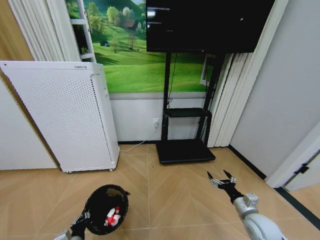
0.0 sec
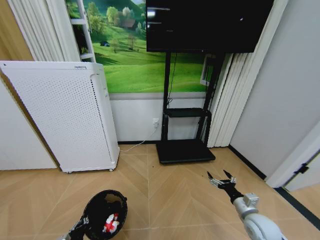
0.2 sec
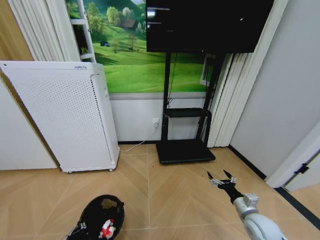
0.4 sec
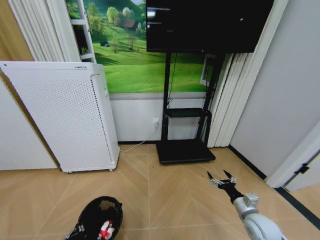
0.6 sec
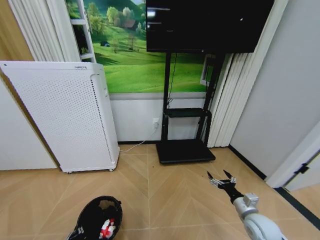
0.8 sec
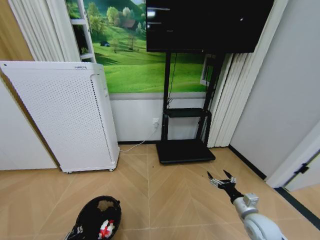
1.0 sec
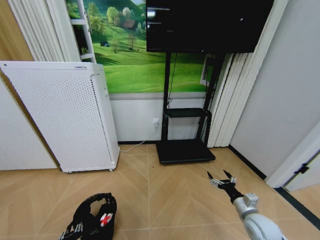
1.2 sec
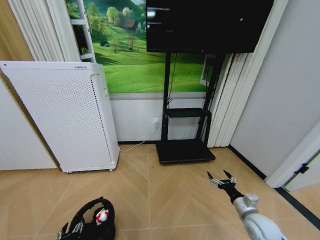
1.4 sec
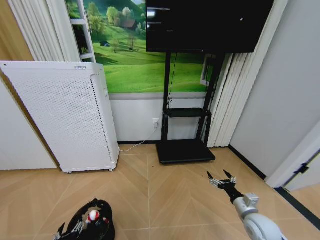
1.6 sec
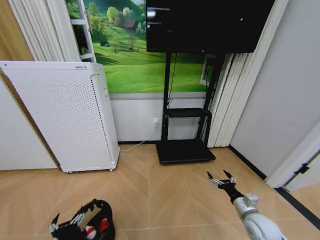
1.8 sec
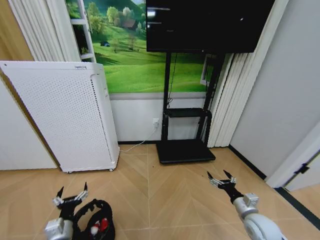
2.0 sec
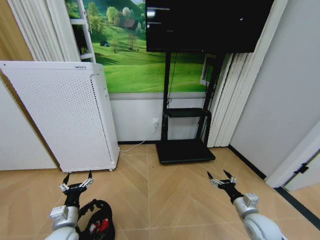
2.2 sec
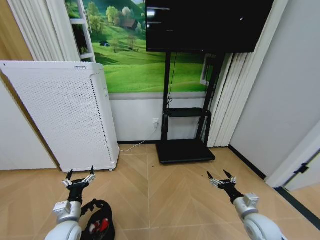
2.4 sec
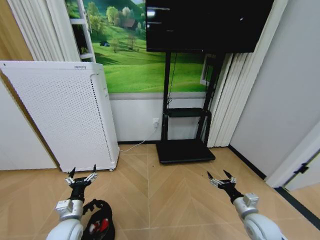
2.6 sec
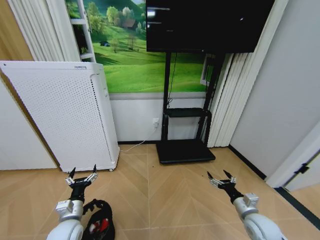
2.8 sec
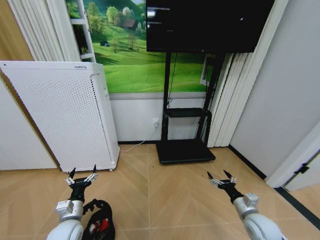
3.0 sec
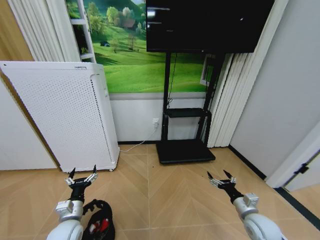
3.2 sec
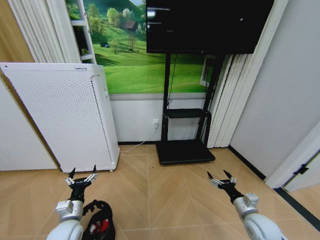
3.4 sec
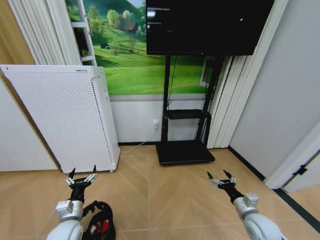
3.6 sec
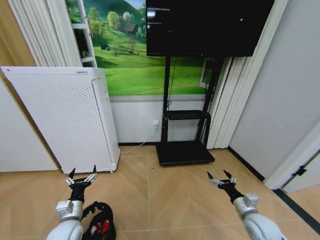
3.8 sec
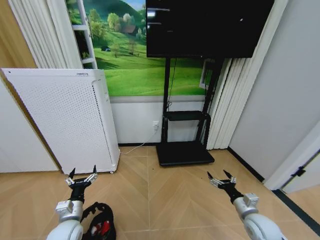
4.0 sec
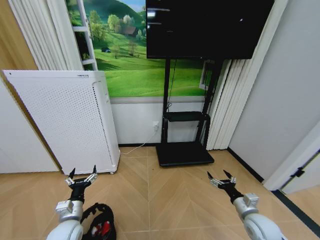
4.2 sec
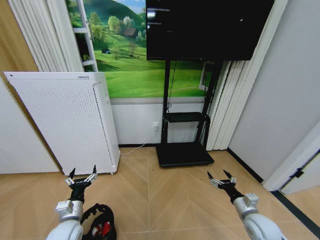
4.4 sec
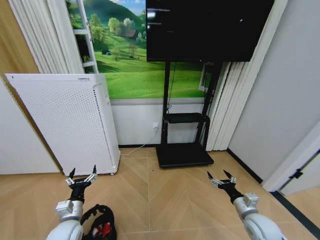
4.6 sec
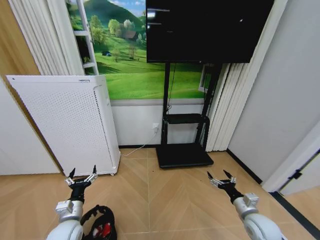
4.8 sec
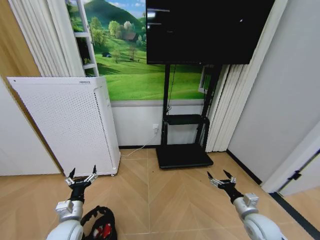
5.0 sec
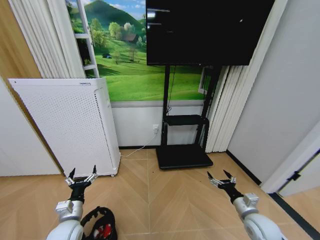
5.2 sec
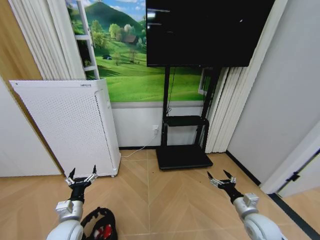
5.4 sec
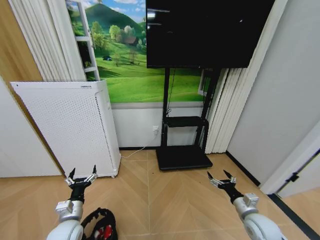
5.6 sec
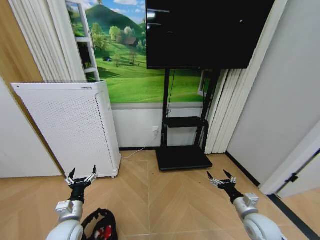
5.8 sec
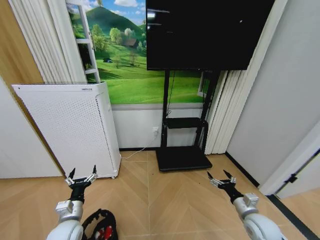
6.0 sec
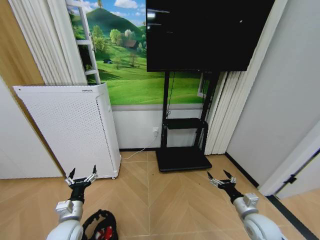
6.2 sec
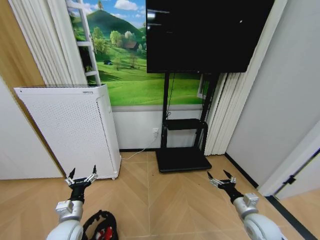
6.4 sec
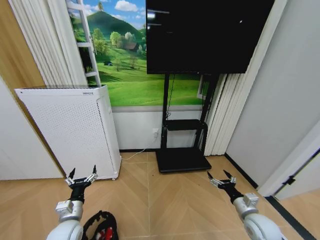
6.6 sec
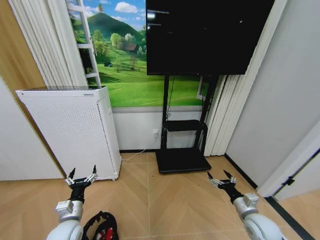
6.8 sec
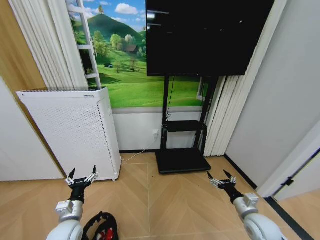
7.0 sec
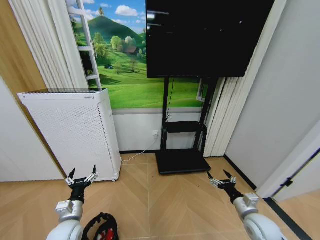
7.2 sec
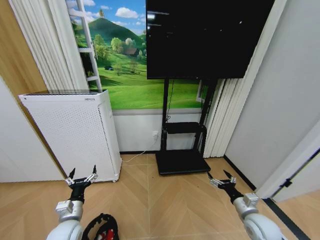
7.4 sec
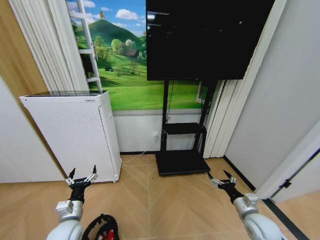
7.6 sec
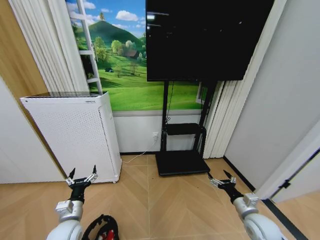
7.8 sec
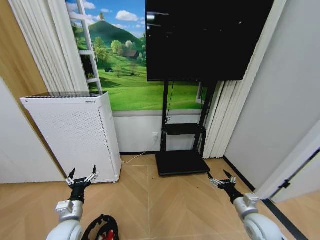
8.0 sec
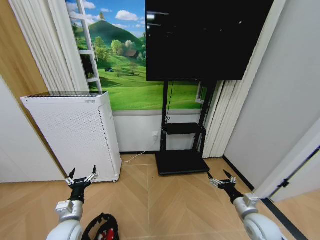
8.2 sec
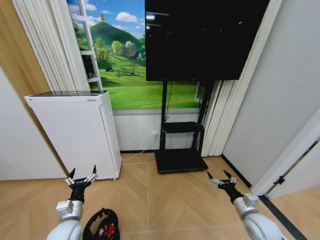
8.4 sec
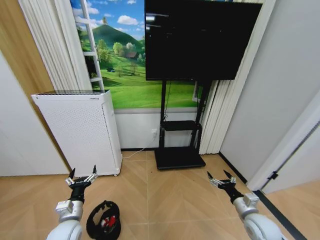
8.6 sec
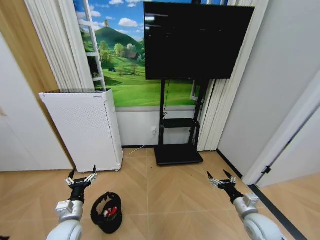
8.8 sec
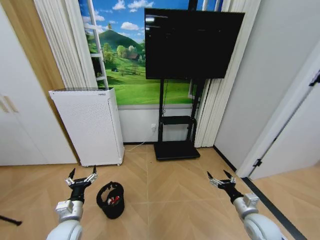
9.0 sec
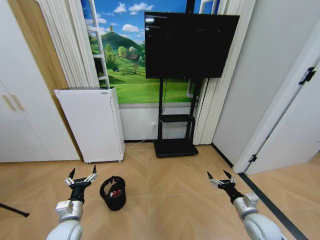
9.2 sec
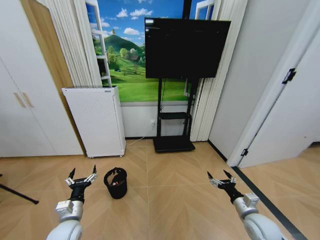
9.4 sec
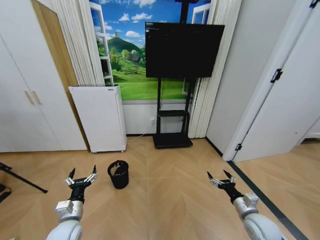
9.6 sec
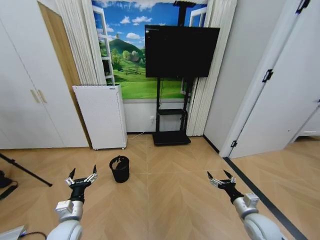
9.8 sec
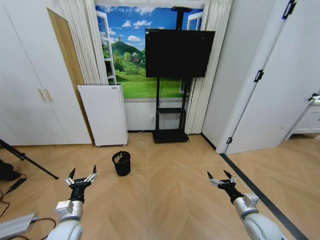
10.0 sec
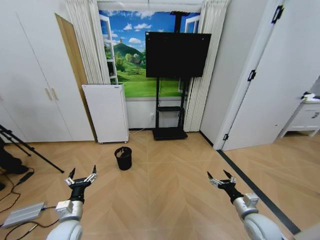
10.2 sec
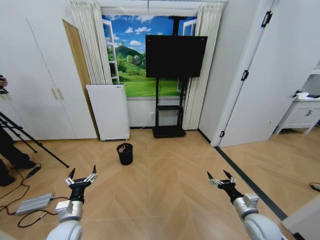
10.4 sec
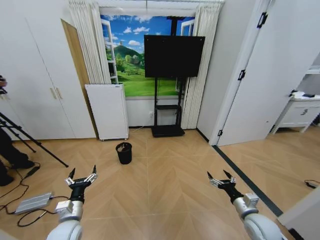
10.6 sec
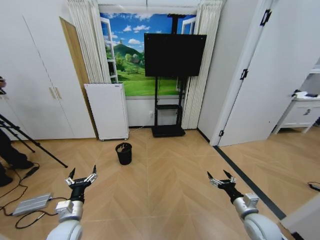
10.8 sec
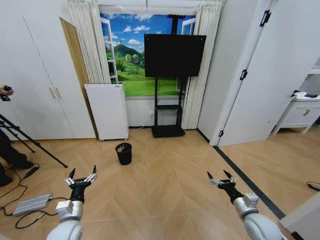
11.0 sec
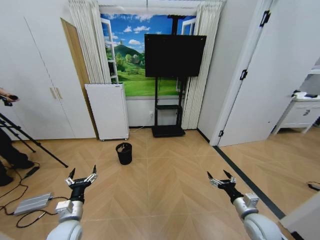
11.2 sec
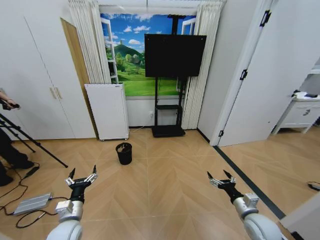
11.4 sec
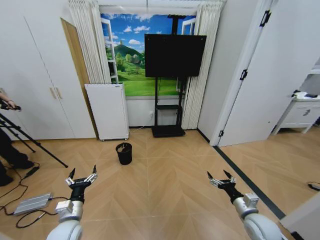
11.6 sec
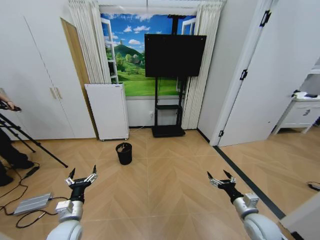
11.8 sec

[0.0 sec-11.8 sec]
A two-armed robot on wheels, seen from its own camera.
Task of the whole recording: Pick up the trash bin and place the garbage on the floor into it.
0.0 sec to 1.4 sec: The left gripper opens its fingers.
1.4 sec to 3.0 sec: The left gripper goes roughly 15 cm forward and upward, and opens its fingers.
3.0 sec to 7.4 sec: Neither gripper changes place.
10.4 sec to 11.8 sec: Both grippers stay about where they are.
